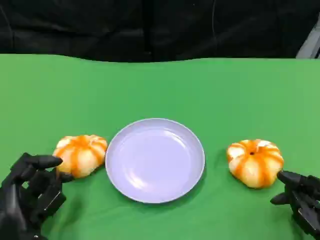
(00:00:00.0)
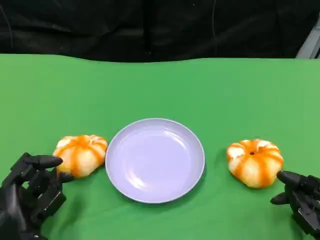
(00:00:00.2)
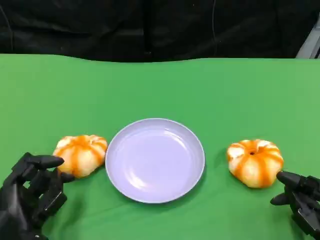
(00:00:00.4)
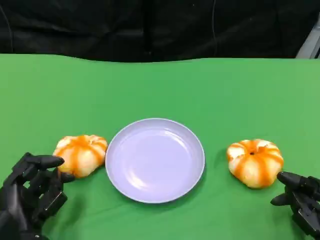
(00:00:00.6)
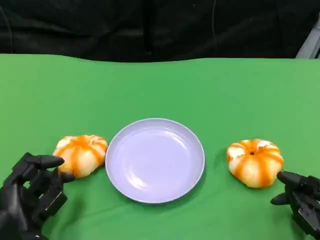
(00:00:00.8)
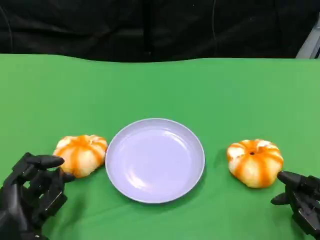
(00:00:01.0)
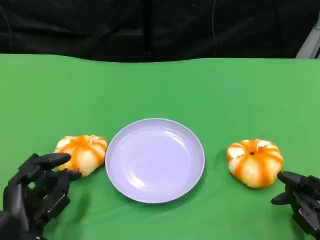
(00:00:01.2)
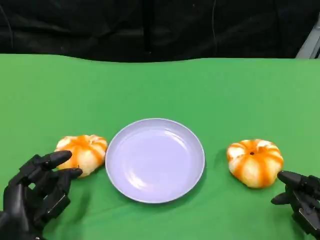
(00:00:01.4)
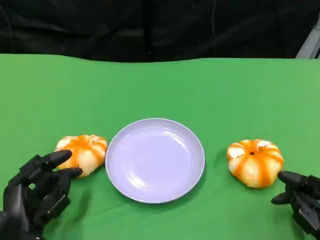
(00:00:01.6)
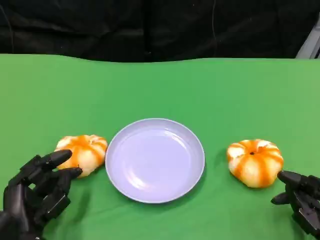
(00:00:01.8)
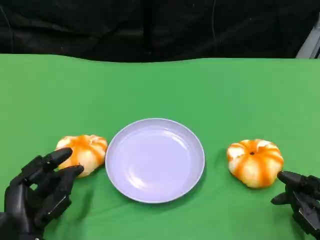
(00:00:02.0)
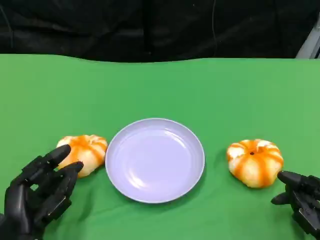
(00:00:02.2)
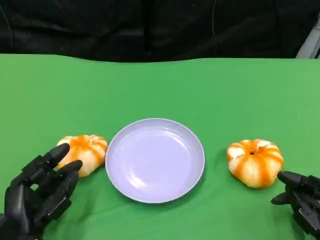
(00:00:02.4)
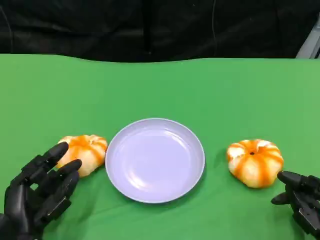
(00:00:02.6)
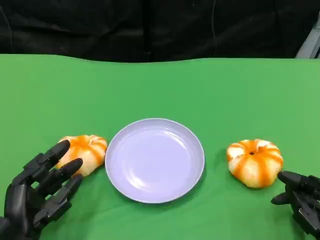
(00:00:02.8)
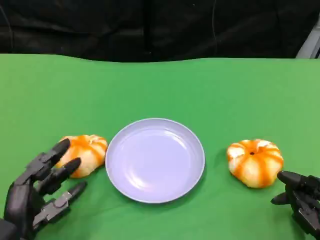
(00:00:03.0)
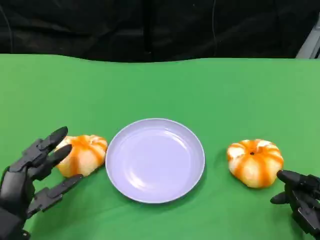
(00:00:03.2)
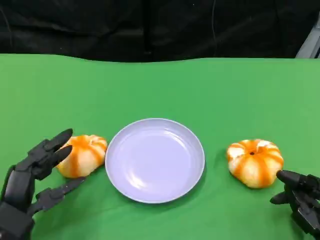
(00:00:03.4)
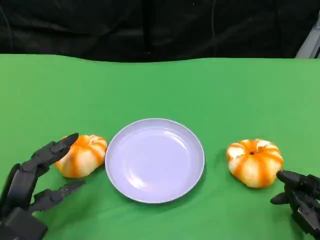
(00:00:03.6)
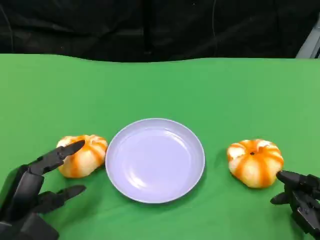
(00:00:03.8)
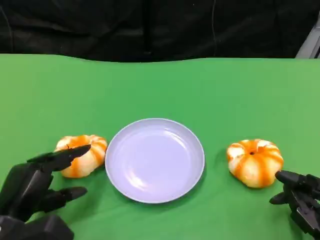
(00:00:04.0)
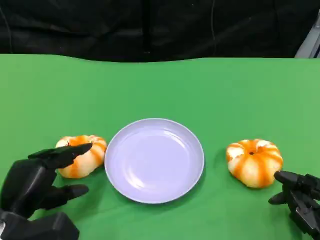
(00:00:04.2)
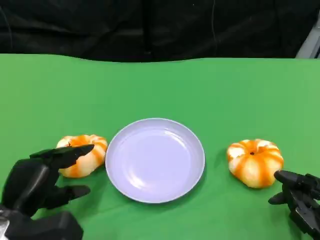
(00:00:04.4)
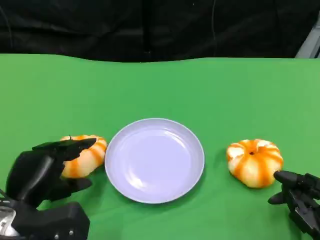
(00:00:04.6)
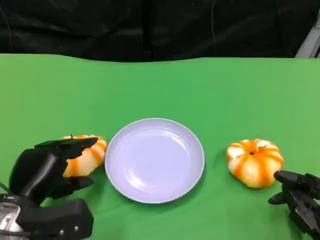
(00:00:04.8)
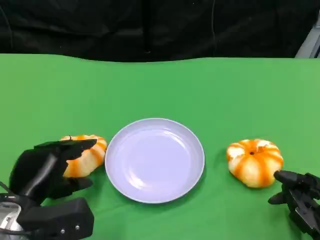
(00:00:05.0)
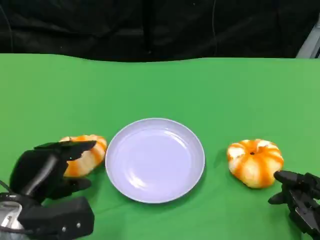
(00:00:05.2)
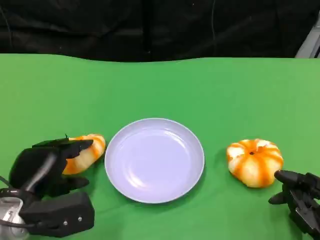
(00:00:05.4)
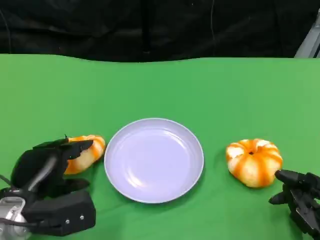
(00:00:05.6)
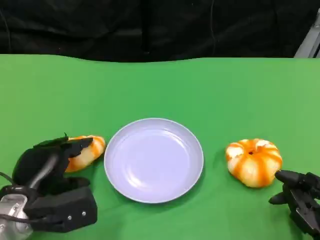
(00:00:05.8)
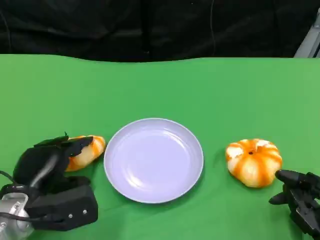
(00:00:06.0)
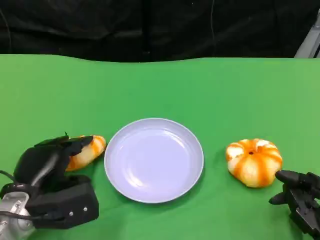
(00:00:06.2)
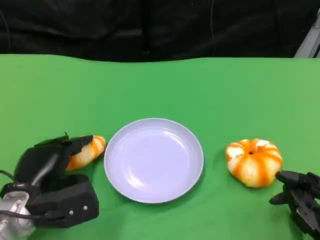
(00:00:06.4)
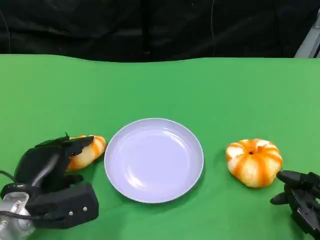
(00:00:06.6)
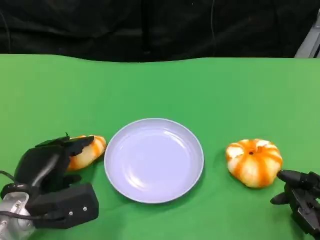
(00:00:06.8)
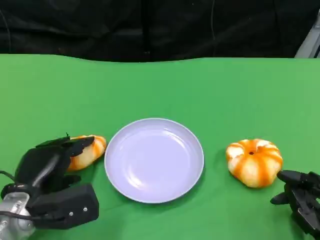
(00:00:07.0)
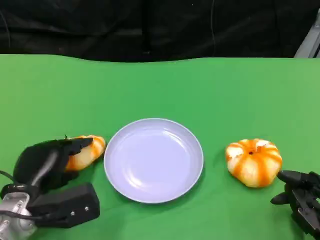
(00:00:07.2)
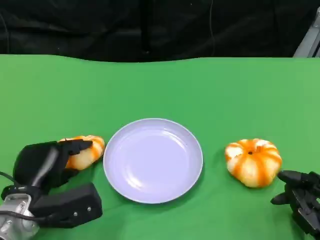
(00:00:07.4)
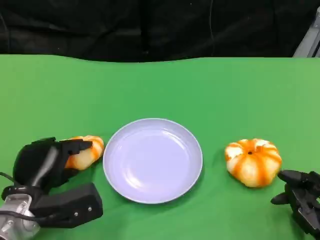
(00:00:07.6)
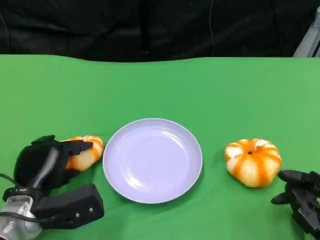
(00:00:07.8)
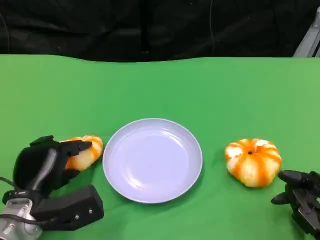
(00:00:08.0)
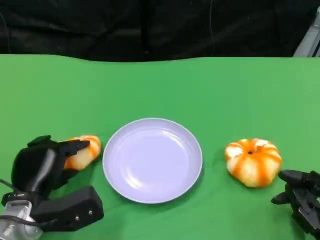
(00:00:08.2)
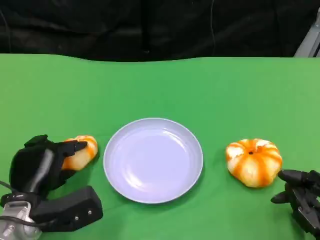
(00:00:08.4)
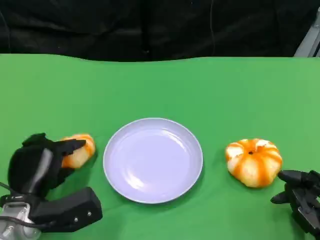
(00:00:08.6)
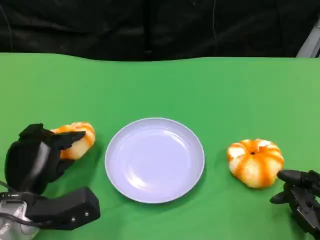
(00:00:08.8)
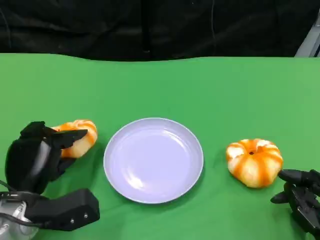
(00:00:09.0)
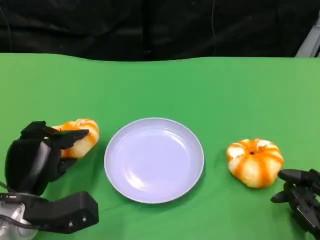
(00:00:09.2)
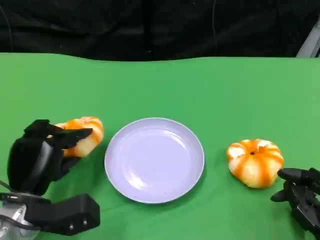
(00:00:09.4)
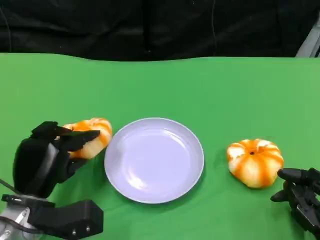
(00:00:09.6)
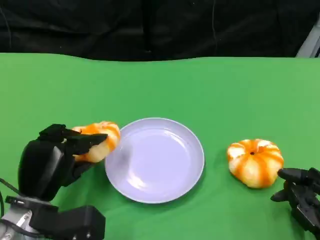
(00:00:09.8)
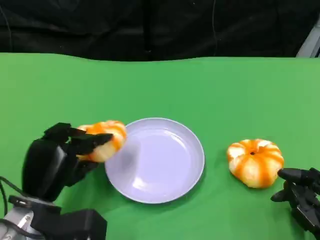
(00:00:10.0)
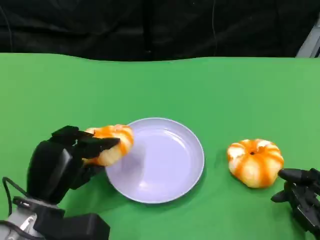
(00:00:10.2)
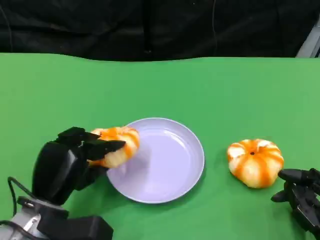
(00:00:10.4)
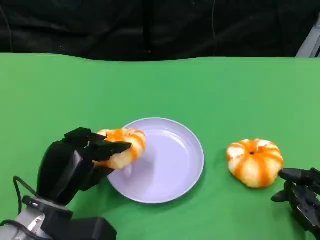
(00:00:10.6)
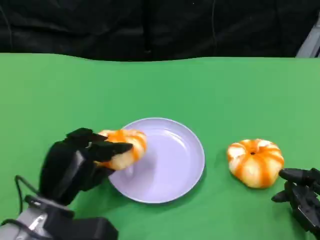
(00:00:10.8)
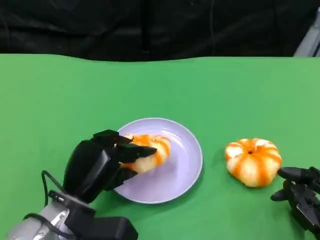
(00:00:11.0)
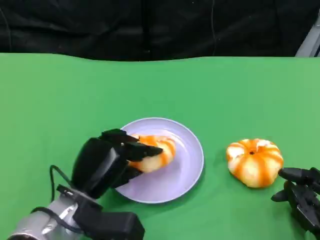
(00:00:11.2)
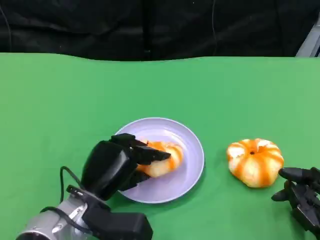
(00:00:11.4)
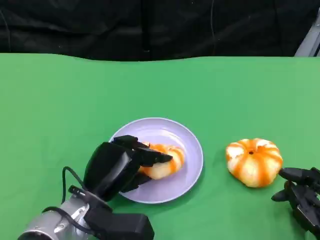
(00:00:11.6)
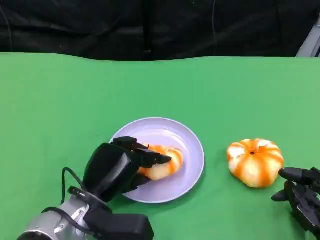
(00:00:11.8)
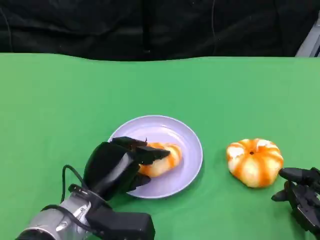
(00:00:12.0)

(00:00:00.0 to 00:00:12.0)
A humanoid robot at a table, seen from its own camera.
Task of the whole recording: Grasp the bread from the table and place it into the plate.
00:00:00.0 - 00:00:01.6: Neither hand changes place.
00:00:04.4 - 00:00:10.4: The hands move only a little.
00:00:10.4 - 00:00:12.0: The left hand travels to the right by some 5 cm.

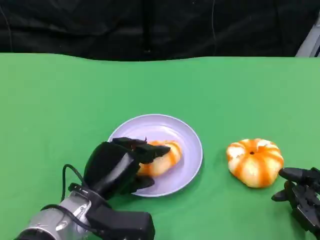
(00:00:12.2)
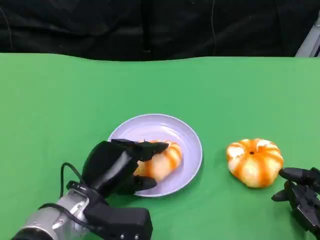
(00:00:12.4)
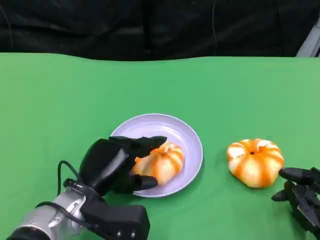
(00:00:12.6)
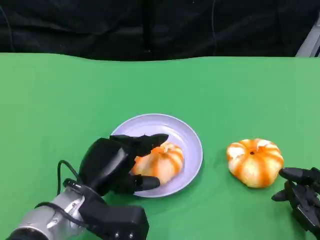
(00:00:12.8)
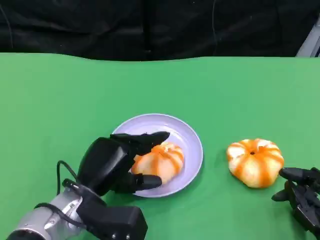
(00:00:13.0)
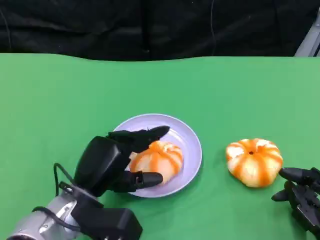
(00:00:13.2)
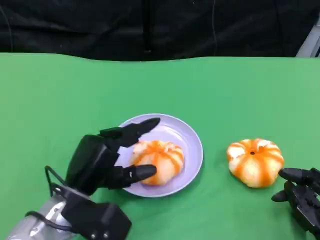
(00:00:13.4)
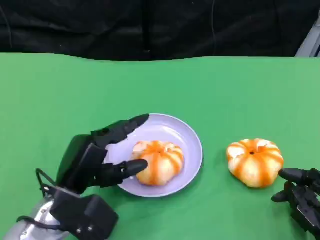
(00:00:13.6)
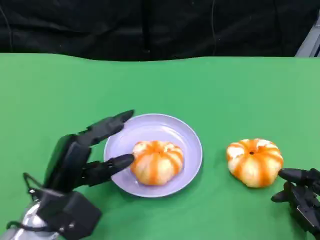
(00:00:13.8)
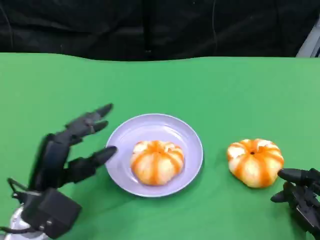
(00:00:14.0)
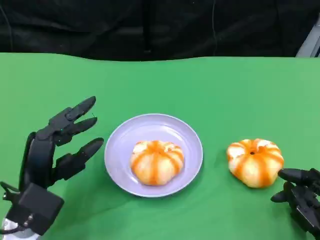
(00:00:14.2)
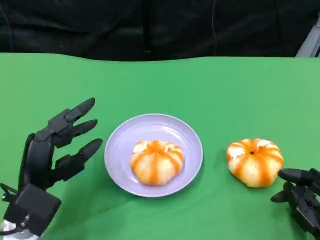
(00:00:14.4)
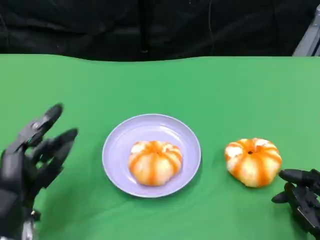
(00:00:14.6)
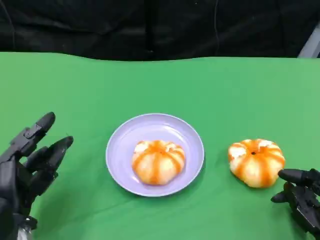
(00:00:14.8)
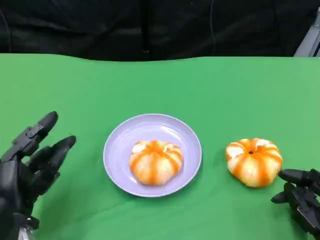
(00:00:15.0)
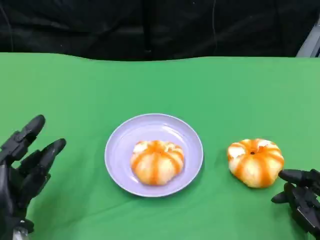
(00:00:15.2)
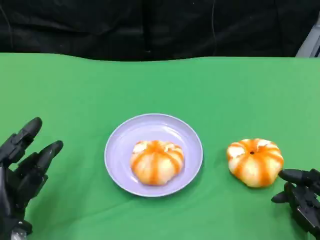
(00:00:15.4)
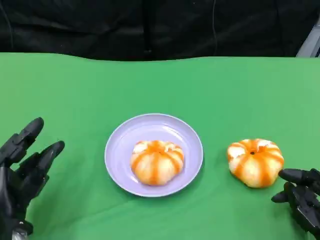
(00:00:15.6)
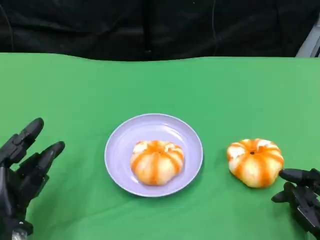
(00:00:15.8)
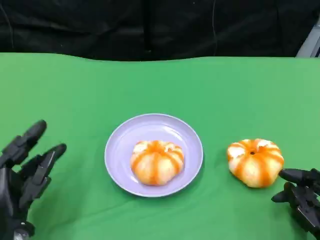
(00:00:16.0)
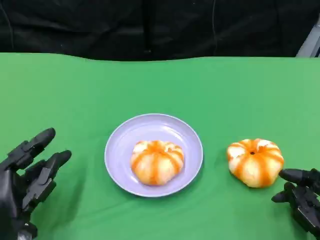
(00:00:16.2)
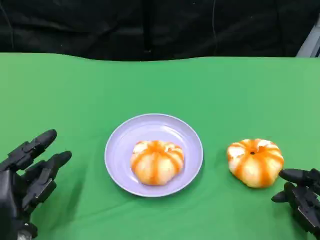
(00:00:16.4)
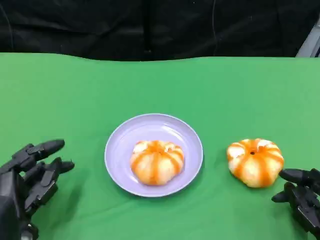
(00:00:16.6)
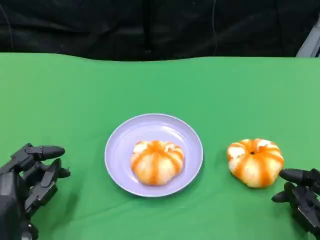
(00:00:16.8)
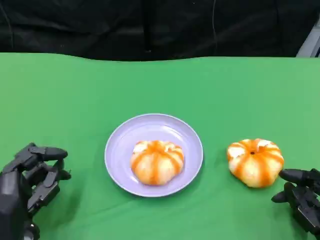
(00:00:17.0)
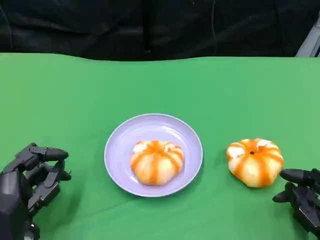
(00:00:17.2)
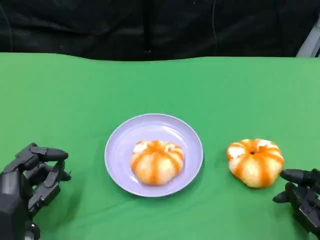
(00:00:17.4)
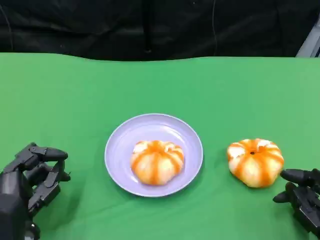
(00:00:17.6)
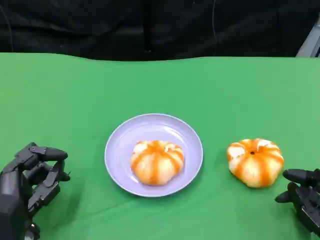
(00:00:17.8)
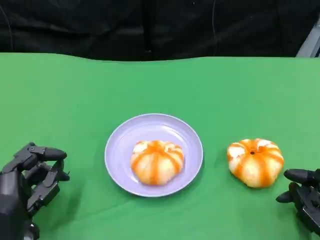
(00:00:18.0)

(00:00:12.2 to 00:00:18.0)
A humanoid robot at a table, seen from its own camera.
Task of the whole recording: Grasp the bread from the table and place it into the plate.
00:00:13.6 - 00:00:15.0: The left hand shifts approximately 5 cm to the left.
00:00:15.0 - 00:00:16.6: The hands stay close to where they were, moving slightly.
00:00:16.6 - 00:00:18.0: Neither hand changes place.

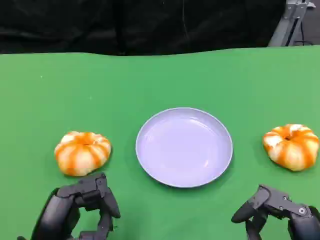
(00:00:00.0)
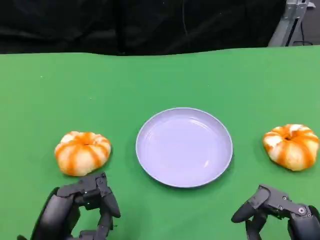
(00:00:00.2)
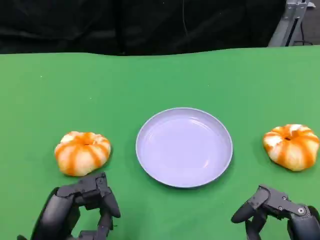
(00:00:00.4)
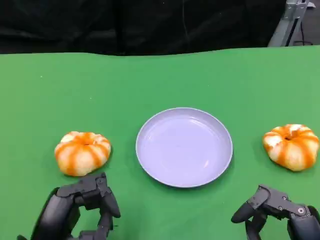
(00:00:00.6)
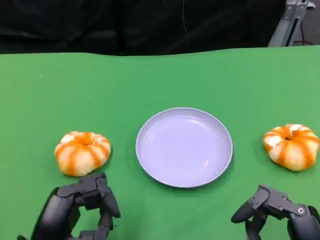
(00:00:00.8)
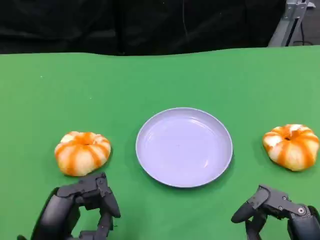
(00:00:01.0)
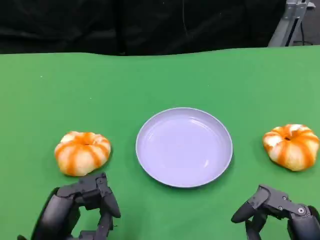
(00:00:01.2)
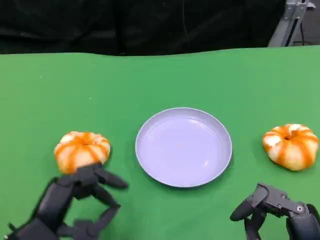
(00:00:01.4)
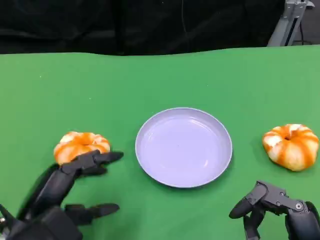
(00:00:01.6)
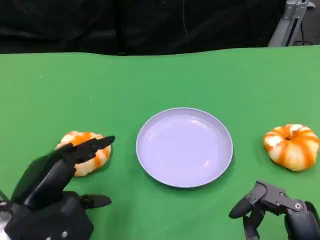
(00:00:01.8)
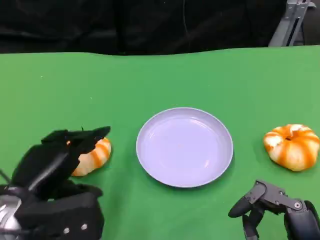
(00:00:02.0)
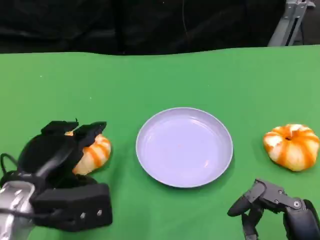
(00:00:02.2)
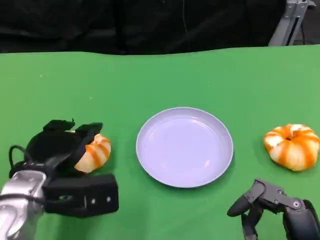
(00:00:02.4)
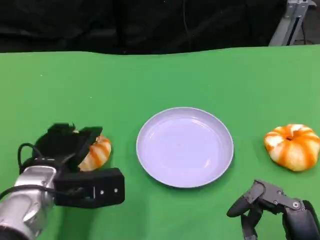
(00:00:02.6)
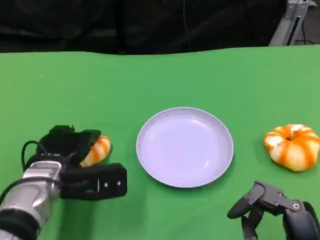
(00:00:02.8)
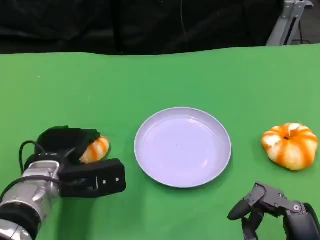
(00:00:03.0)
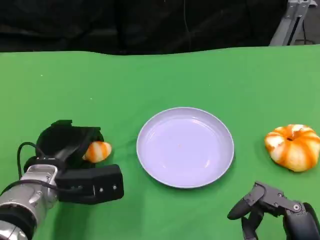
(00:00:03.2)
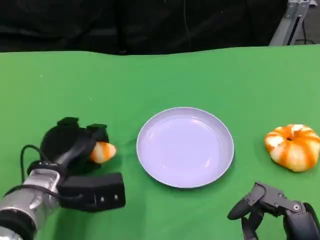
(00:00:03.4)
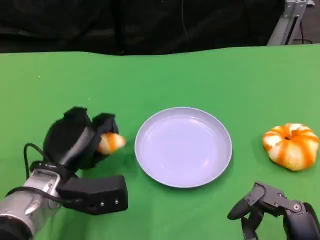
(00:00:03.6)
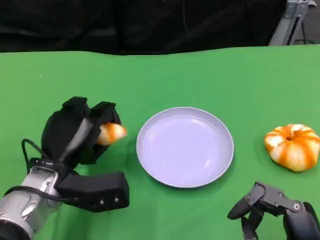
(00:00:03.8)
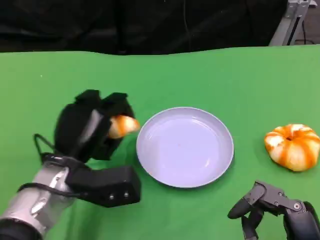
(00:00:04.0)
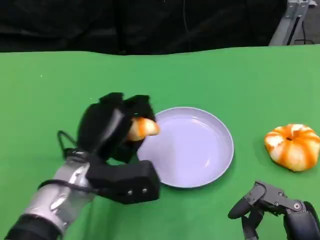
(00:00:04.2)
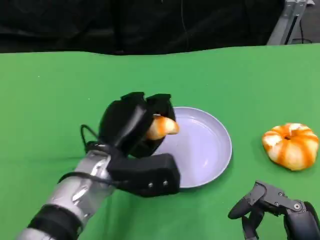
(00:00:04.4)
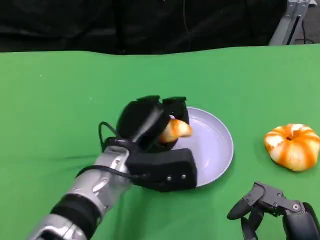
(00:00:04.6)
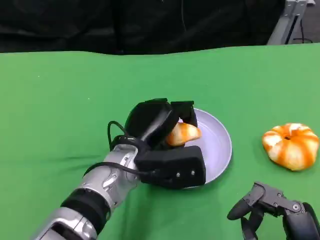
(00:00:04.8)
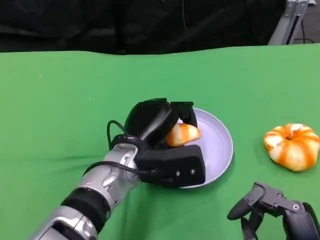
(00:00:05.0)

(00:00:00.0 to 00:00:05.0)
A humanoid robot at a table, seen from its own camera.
Task of the whole recording: Grasp the bread from the table and place it into the plate.
00:00:01.6 - 00:00:03.4: The left hand travels forward by roughly 10 cm.
00:00:03.4 - 00:00:05.0: The left hand heads to the right, covering some 10 cm.
